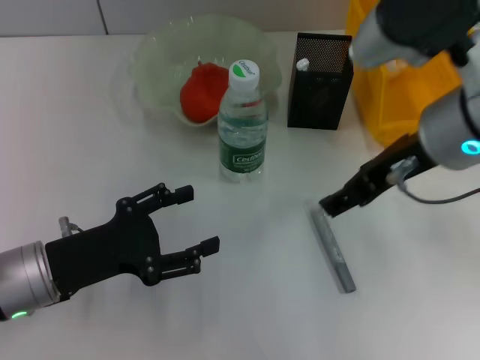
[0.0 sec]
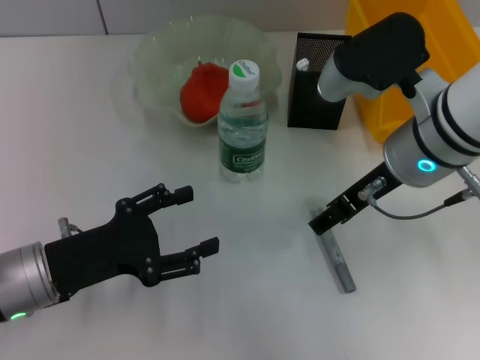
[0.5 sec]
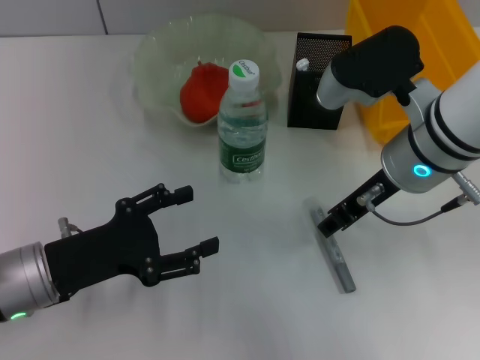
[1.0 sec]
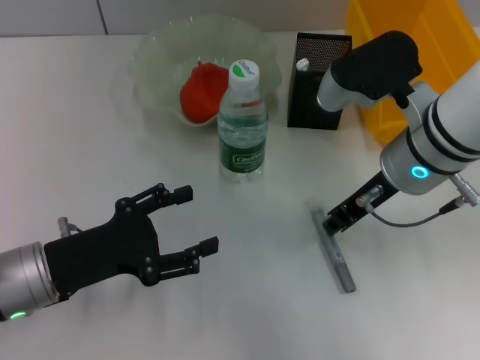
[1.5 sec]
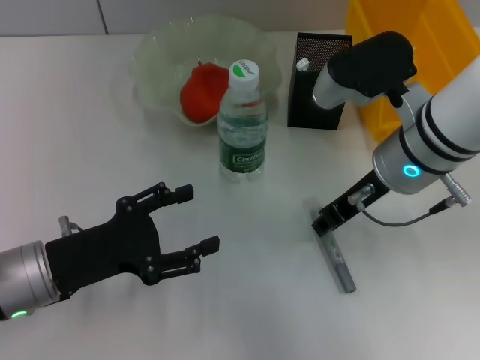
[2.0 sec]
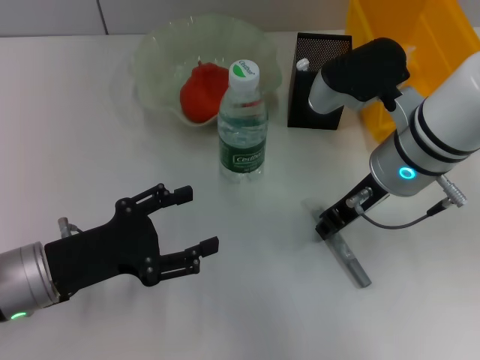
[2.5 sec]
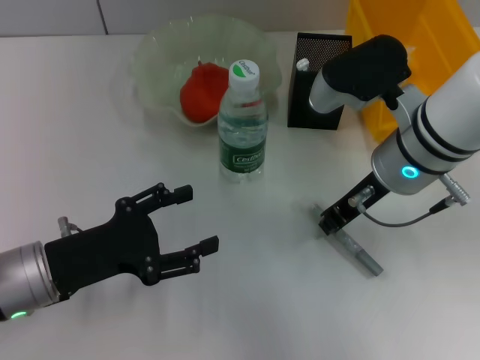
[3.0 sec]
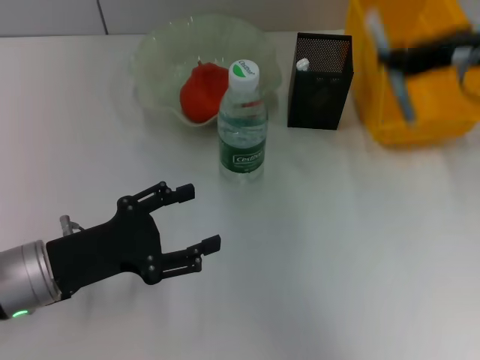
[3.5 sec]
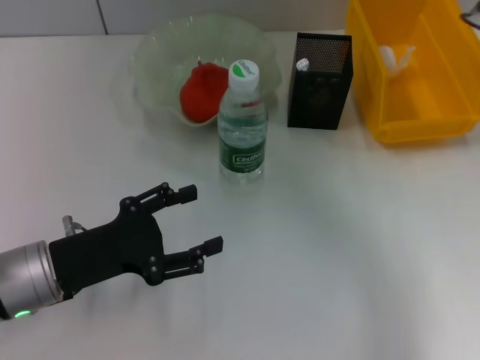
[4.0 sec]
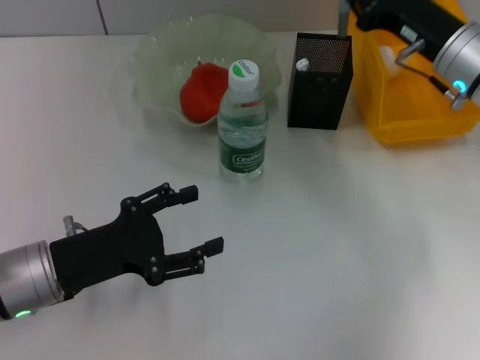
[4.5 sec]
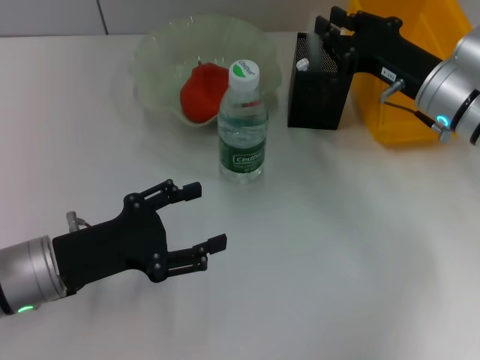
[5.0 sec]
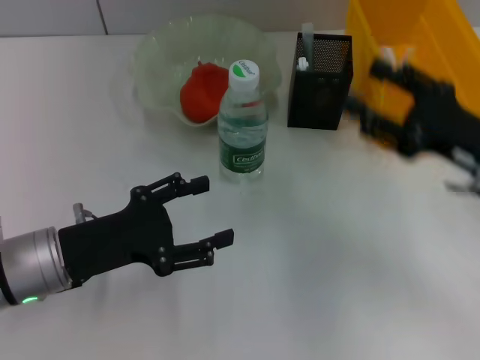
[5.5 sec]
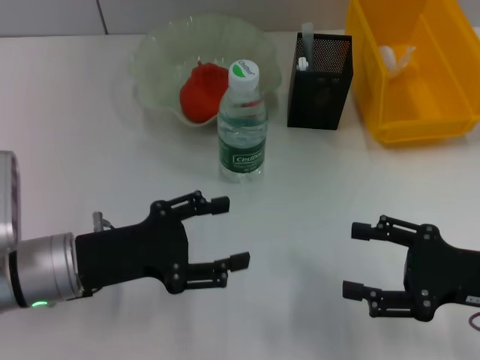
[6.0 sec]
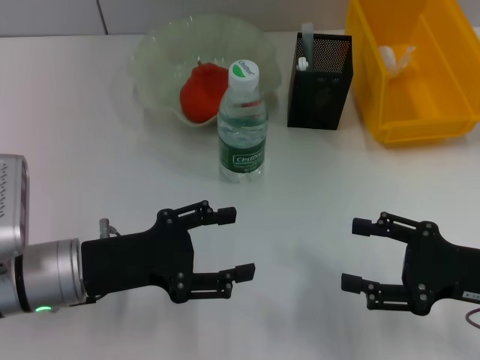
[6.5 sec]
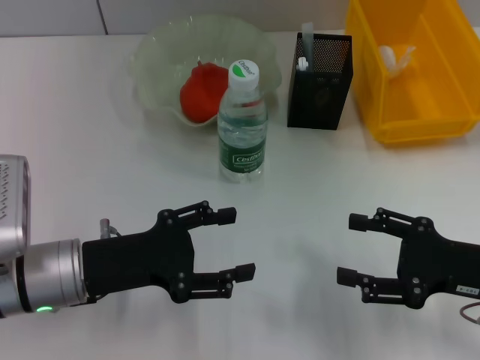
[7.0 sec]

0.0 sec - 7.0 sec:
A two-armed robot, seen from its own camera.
Step, 0.0 sec - 2.5 sec: Grab the gray glue with the right hand.
Step, 3.0 sec - 5.0 sec: Place the gray glue into the pen holder with the right hand.
0.0 sec - 2.0 sec: The right gripper shifts roughly 5 cm downward, and closes.
2.0 sec - 3.5 sec: The right gripper moves upward and to the right, approximately 15 cm.
3.5 sec - 5.0 sec: The right gripper travels downward by approximately 15 cm.
5.0 sec - 7.0 sec: The right gripper heads backward and to the right, covering approximately 15 cm, and opens its fingers.

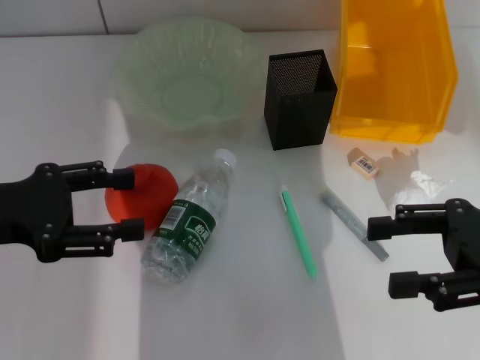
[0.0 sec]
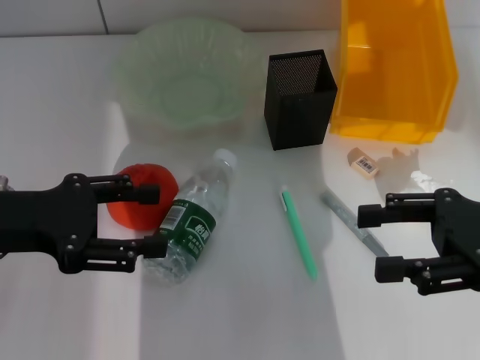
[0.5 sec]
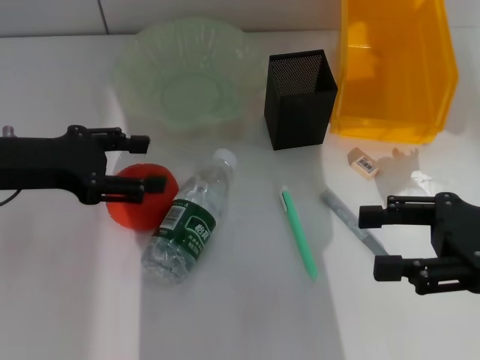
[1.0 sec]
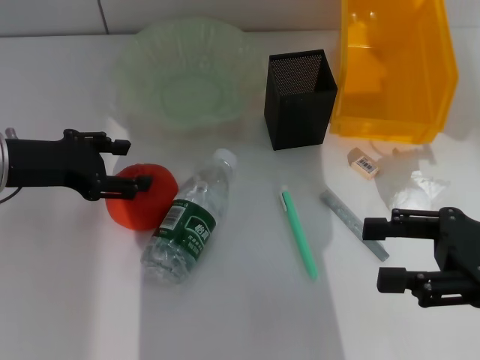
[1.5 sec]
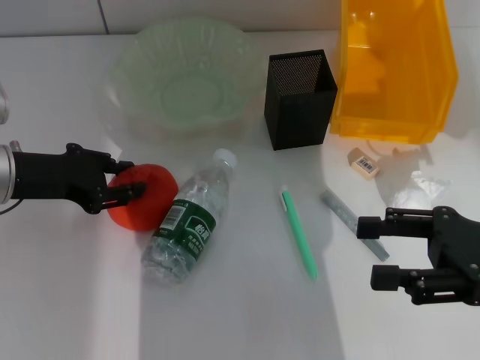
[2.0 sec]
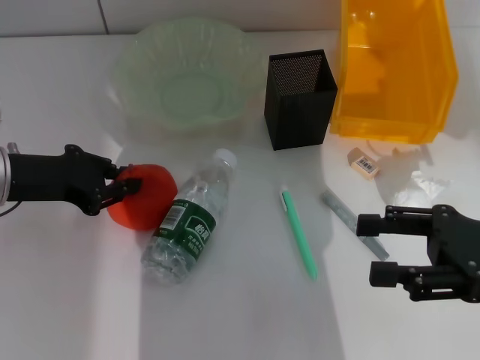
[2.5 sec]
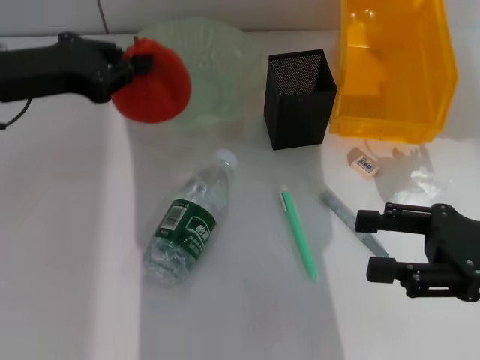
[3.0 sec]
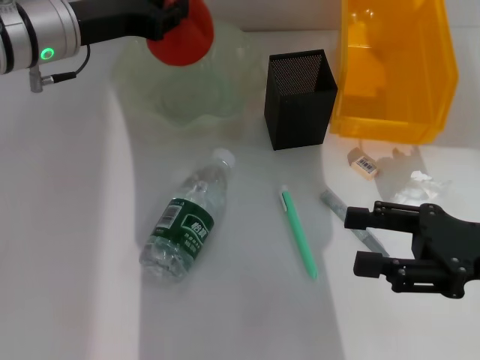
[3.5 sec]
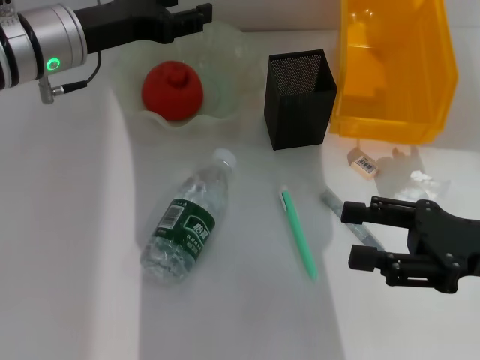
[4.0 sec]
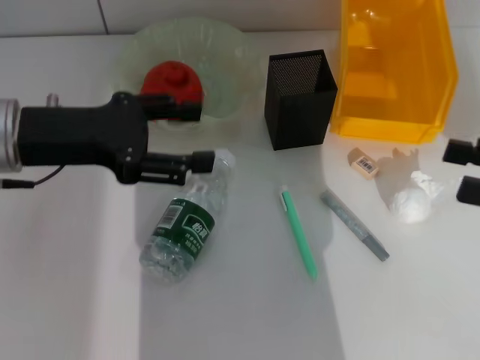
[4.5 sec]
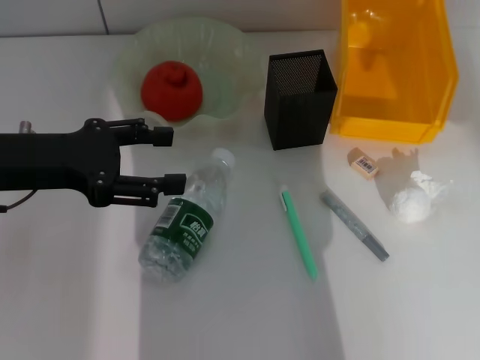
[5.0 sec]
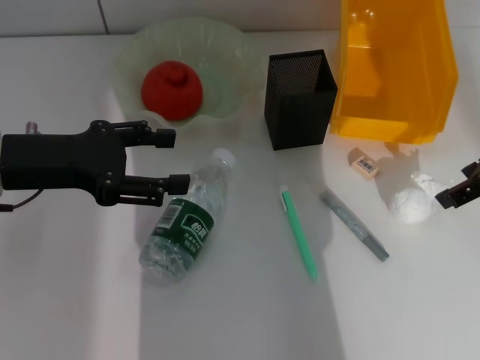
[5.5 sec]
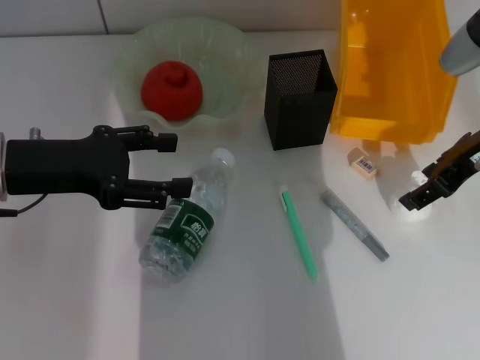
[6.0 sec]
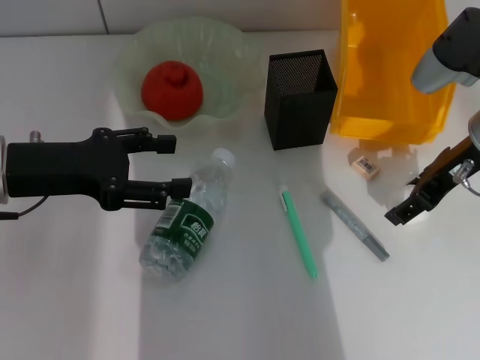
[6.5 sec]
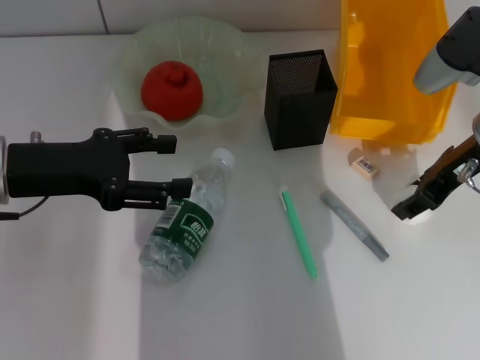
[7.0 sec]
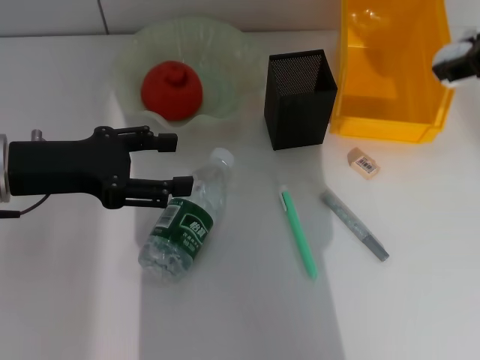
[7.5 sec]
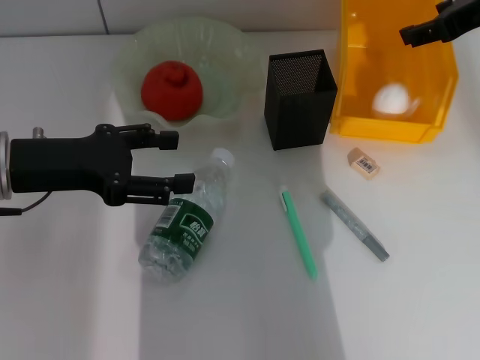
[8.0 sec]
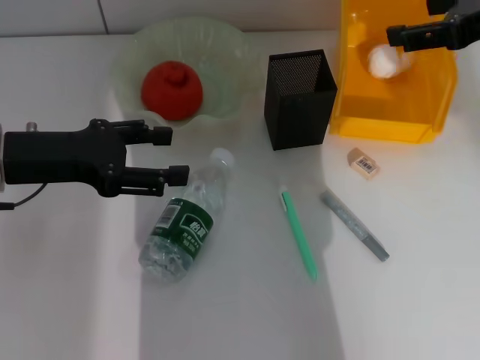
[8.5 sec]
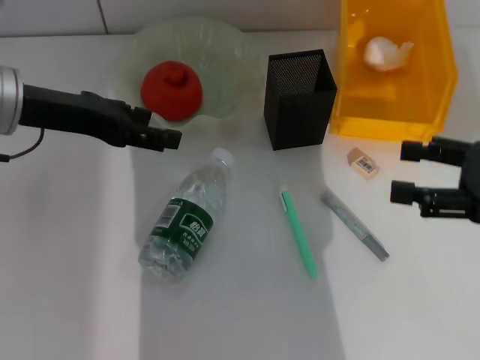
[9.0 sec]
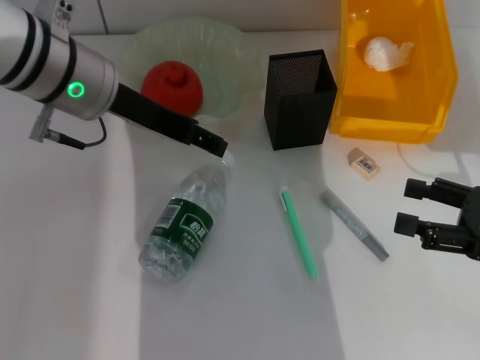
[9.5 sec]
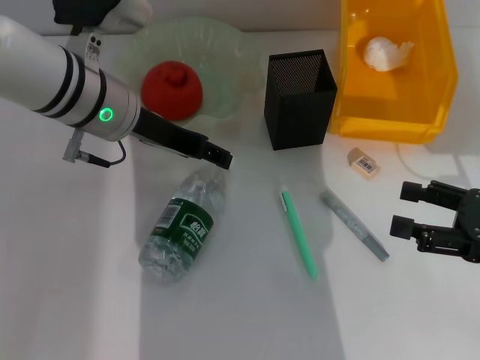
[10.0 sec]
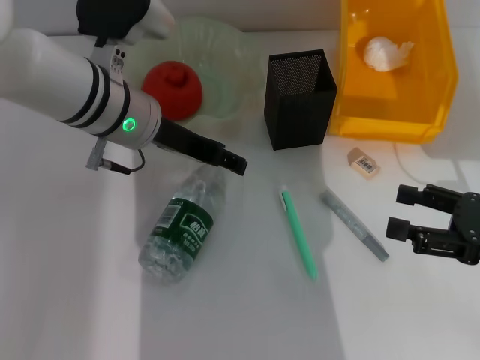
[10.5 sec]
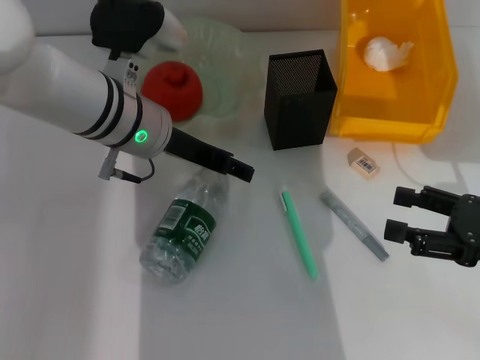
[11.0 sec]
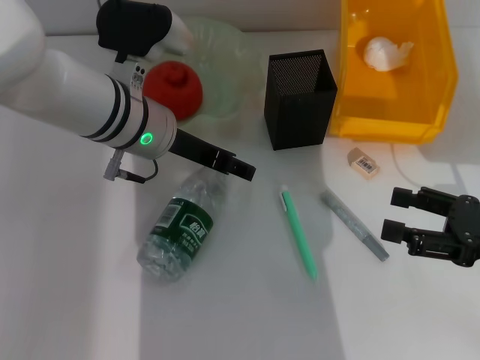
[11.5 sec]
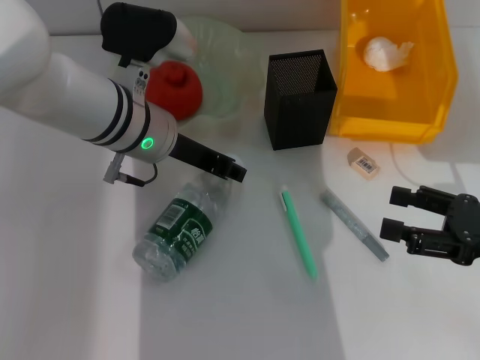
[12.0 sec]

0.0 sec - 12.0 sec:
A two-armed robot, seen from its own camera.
Step, 0.0 sec - 2.0 sec: Grab the orange with the left hand.
Step, 2.5 sec - 4.0 sec: Place the orange into the fruit bowl with the left hand.
Step, 4.5 sec - 6.5 sec: Grab the paper ball with the right hand.
Step, 7.0 sec - 8.0 sec: Place the paper ball into the trash can with the right hand.
Step, 9.0 sec - 11.5 sec: Grab the water bottle with the left hand.
0.0 sec - 2.0 sec: The left gripper moves forward, about 5 cm.
2.0 sec - 4.0 sec: The left gripper shifts some 10 cm forward, to the right and upward, and closes, then opens again.
4.0 sec - 6.0 sec: The right gripper is displaced forward and upward by some 15 cm. The left gripper is displaced backward and to the left by roughly 10 cm.
6.0 sec - 8.0 sec: The right gripper moves upward, some 10 cm.
8.0 sec - 10.0 sec: The right gripper goes roughly 25 cm downward, backward and to the right, and opens up; the left gripper goes some 15 cm to the right and forward.
10.0 sec - 12.0 sec: The left gripper closes.

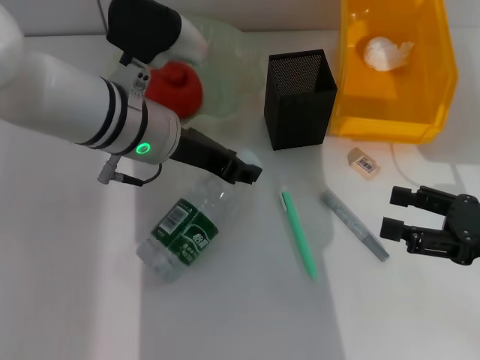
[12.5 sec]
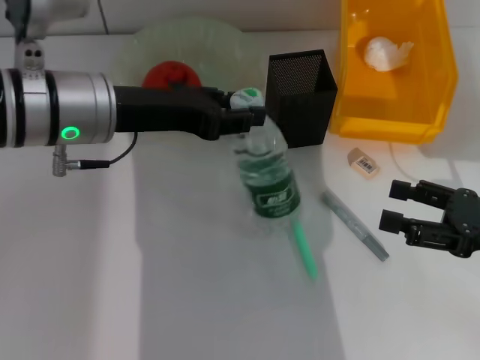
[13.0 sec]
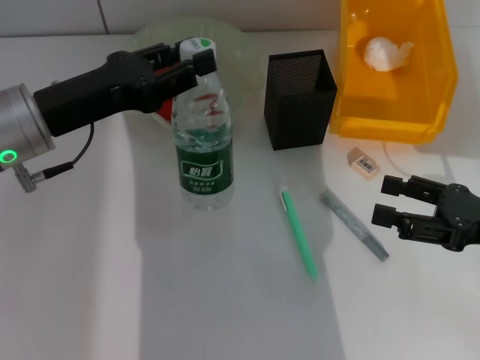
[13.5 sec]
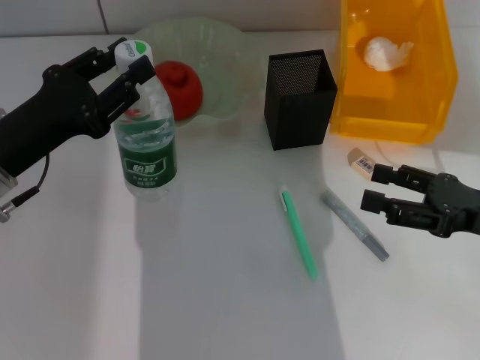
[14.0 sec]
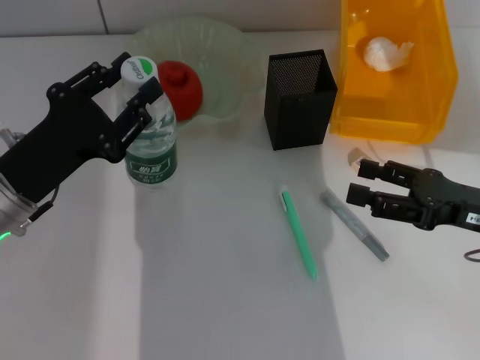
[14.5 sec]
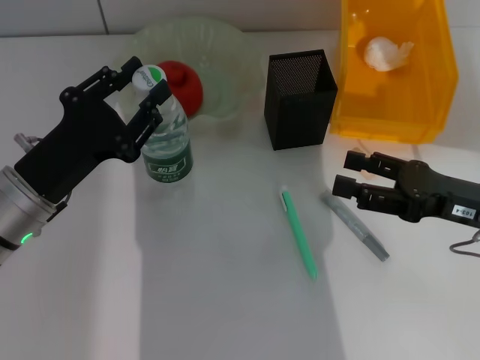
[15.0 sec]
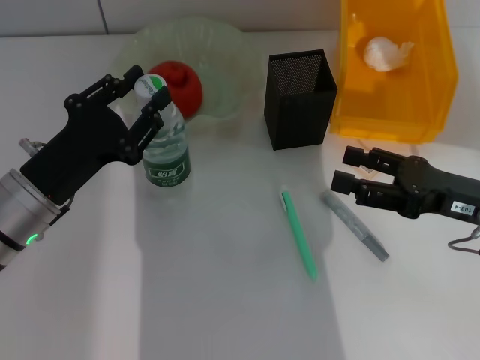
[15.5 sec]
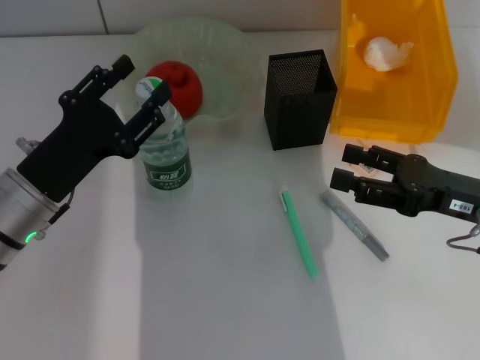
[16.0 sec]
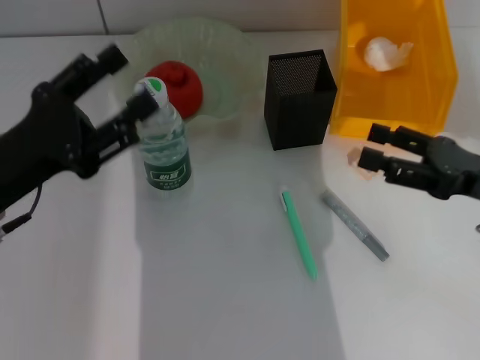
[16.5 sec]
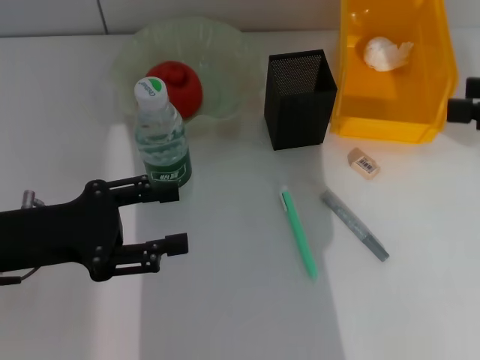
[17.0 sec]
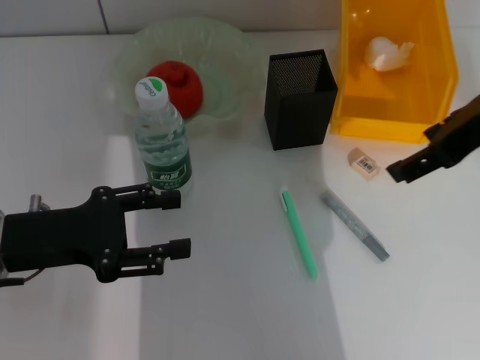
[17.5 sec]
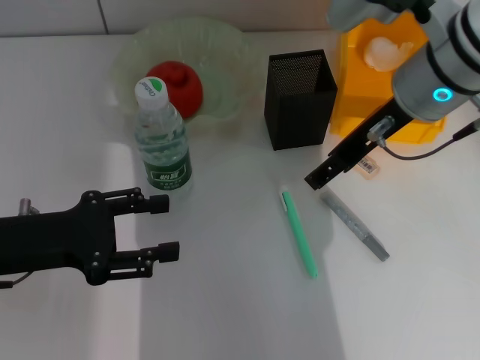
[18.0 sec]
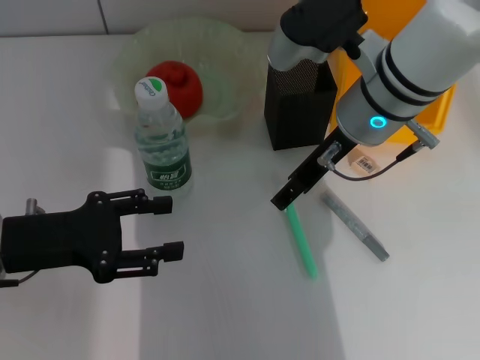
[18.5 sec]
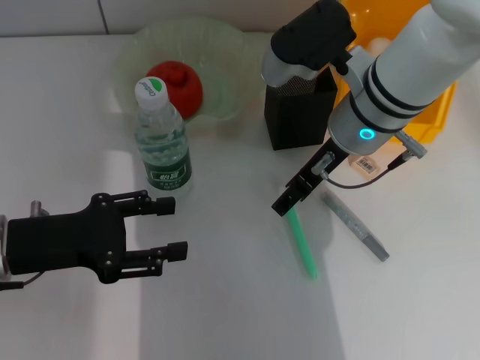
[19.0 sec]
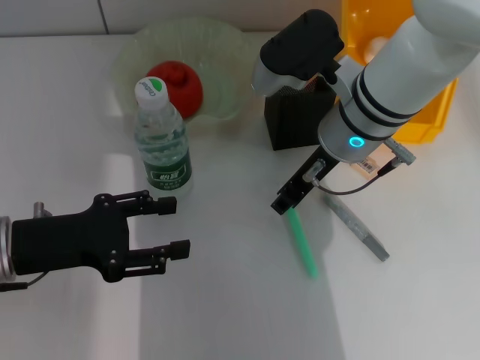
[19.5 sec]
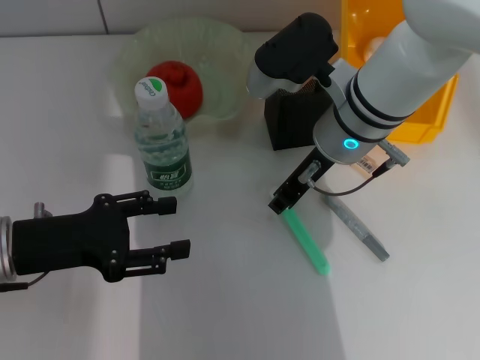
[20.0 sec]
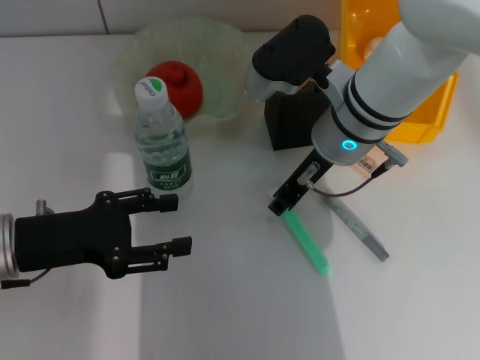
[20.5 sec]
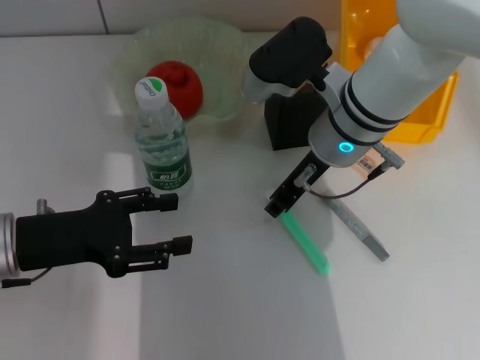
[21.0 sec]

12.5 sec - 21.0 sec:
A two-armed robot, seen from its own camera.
Step, 12.5 sec - 16.0 sec: Place the water bottle on the table with the left hand.
Step, 16.5 sec - 20.0 sec: Grab the blue utility knife with the right hand.
12.5 sec - 14.5 sec: The left gripper heads to the left, backward and downward, covering roughly 15 cm.
14.5 sec - 16.5 sec: The left gripper opens its fingers.
16.5 sec - 19.0 sec: The right gripper moves to the left and forward, roughly 20 cm.
19.0 sec - 21.0 sec: The right gripper closes up.
